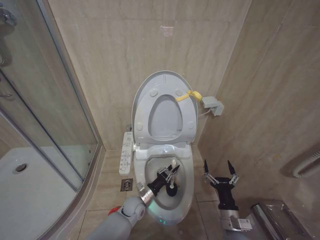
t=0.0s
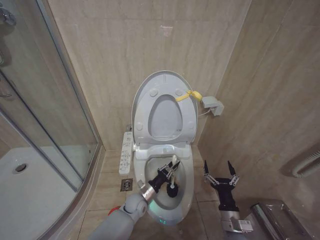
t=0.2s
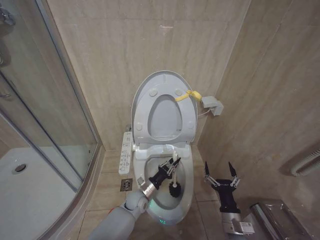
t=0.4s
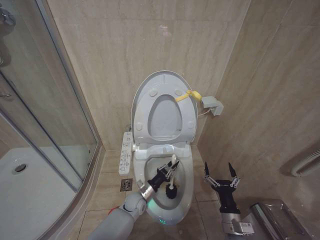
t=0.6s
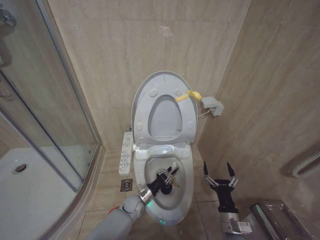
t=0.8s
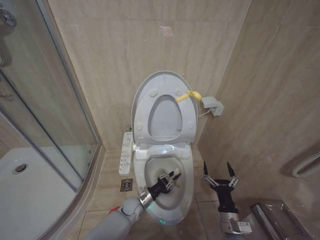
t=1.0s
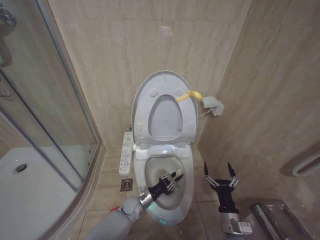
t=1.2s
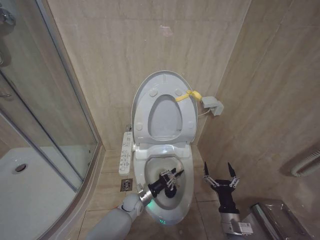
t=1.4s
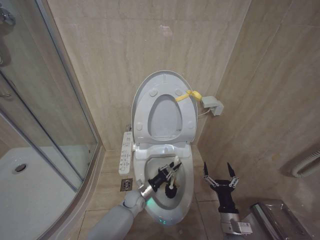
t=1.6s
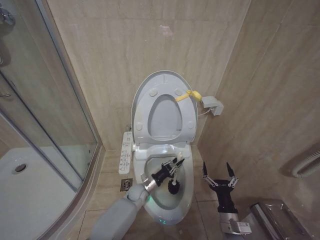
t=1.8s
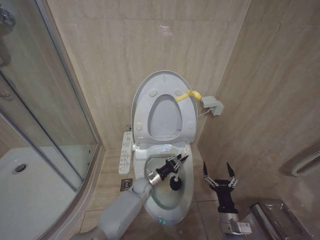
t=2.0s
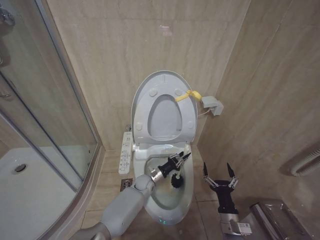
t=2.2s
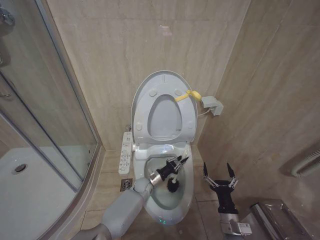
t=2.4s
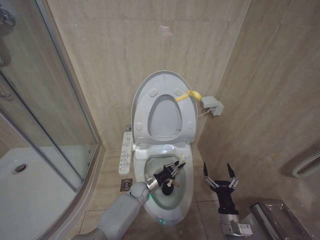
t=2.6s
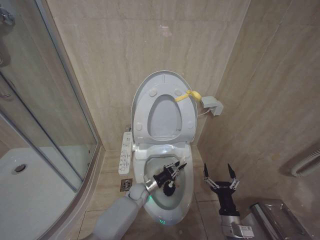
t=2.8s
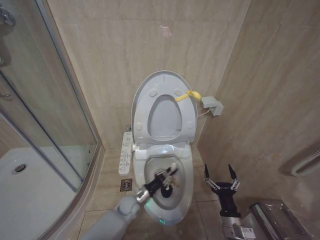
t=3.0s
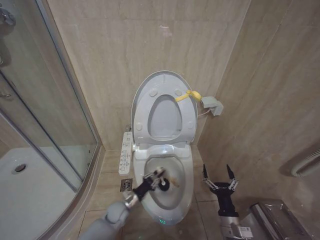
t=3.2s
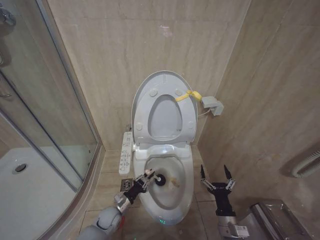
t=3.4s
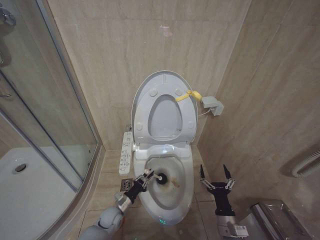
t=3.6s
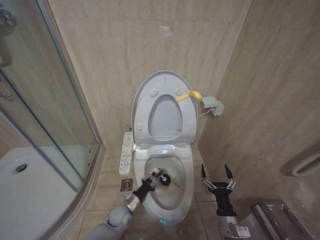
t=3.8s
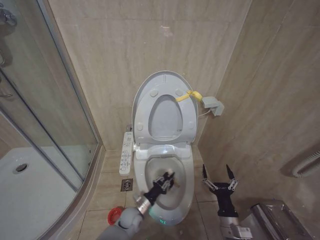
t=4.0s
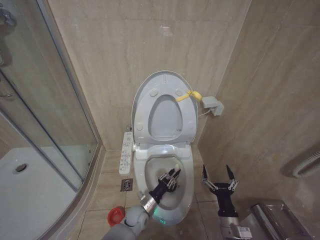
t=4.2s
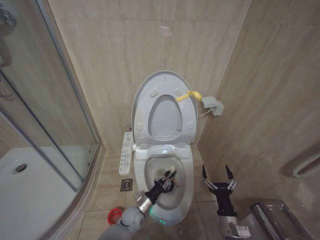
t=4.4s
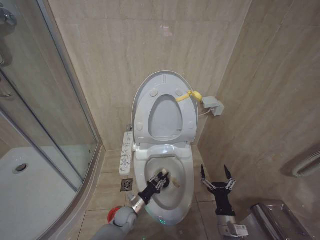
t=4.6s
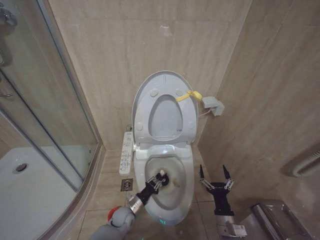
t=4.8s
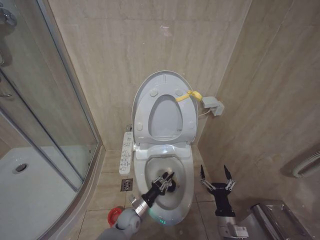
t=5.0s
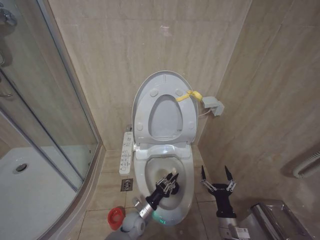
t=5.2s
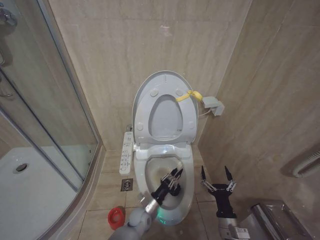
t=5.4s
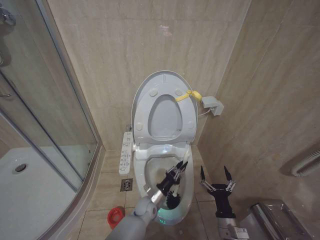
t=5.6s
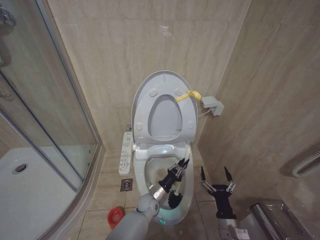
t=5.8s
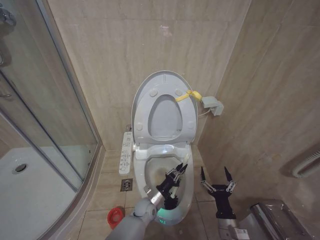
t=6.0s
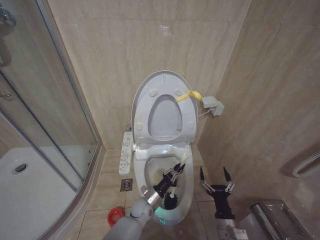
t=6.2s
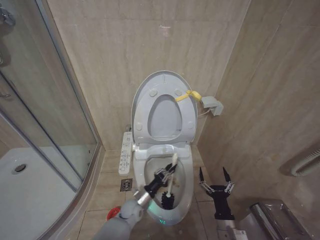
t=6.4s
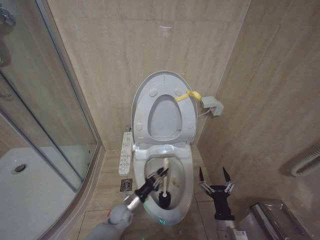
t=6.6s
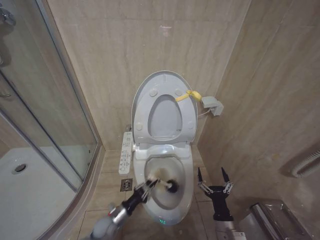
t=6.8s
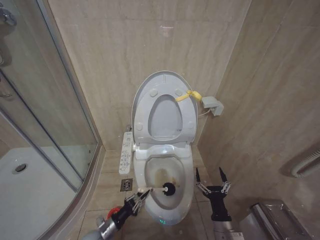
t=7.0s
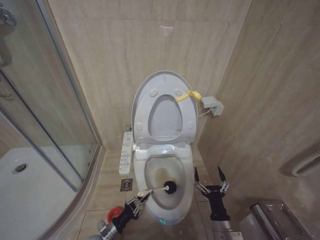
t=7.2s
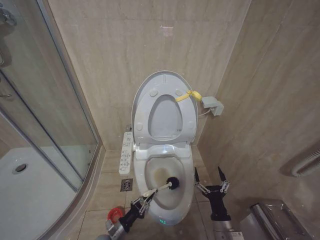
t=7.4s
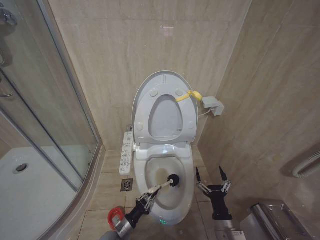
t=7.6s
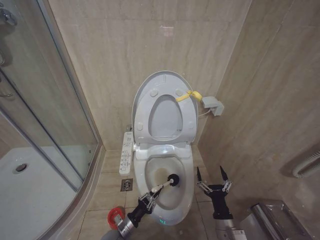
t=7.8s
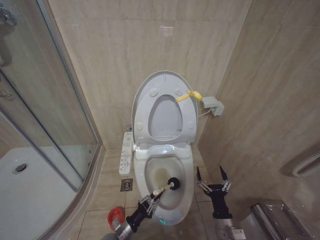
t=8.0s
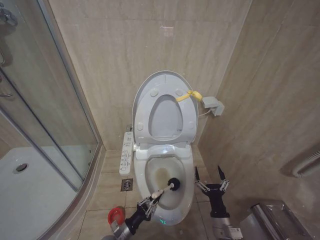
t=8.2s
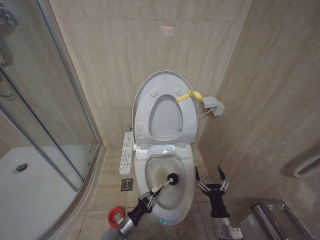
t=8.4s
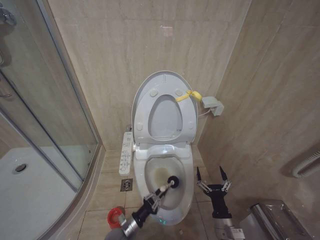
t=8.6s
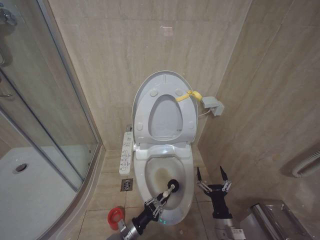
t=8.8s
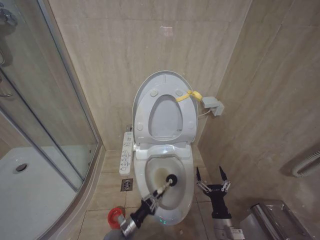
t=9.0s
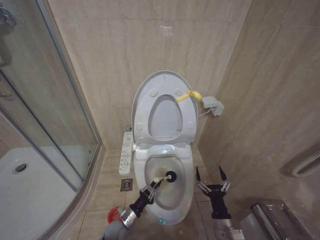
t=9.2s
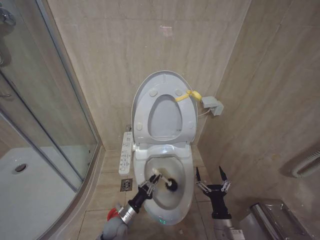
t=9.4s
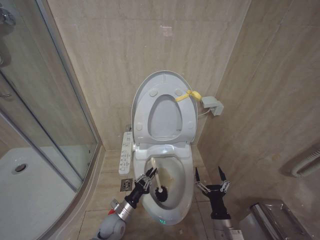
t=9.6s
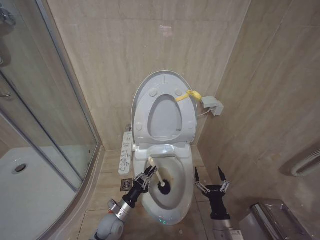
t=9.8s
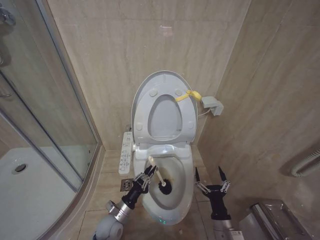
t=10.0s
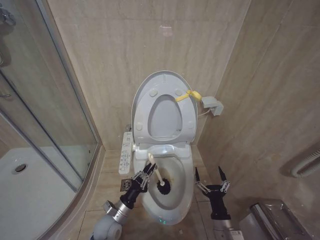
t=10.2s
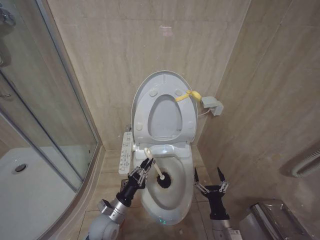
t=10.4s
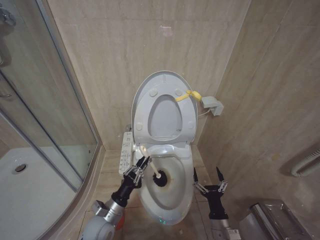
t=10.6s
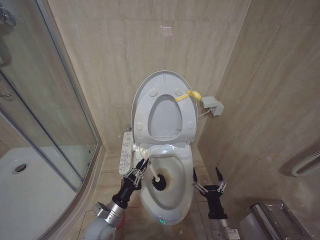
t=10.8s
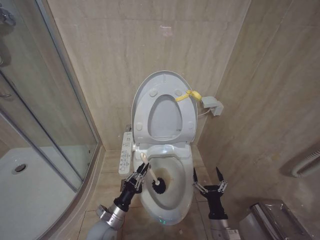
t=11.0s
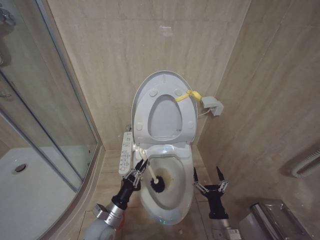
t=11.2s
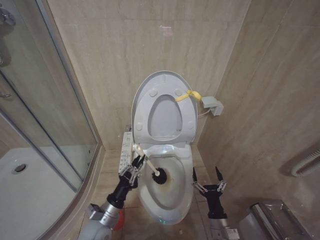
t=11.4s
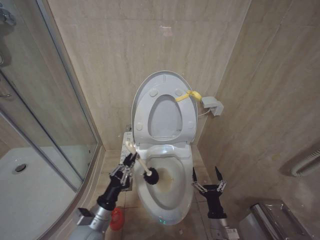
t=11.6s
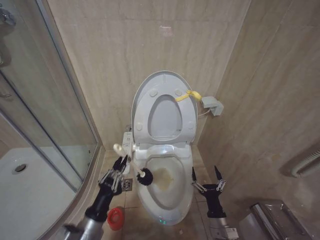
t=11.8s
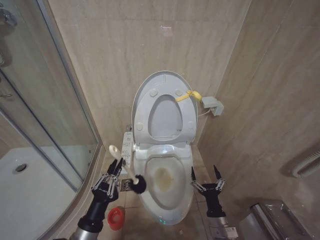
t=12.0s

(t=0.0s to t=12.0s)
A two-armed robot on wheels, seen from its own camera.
Task of the whole recording: Open the toilet lid, clean the toilet bowl with a toilet brush, close the toilet lid, and flush.
t=0.0s - t=1.6s: There are only small adjustments of the grippers.
t=3.0s - t=4.4s: The left gripper moves backward, about 5 cm, and travels to the left and back again, some 10 cm each way.
t=4.4s - t=6.0s: The left gripper shifts roughly 5 cm to the right.
t=6.0s - t=7.6s: The left gripper is displaced to the left and backward by about 20 cm.
t=7.6s - t=9.0s: The grippers stay close to where they were, moving slightly.
t=9.0s - t=10.4s: The left gripper heads upward, covering approximately 15 cm.
t=10.4s - t=12.0s: The left gripper shifts about 15 cm backward and upward.

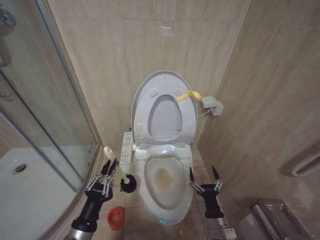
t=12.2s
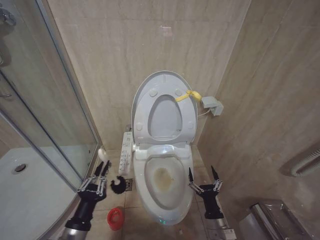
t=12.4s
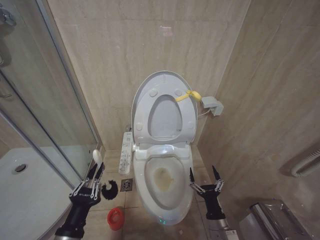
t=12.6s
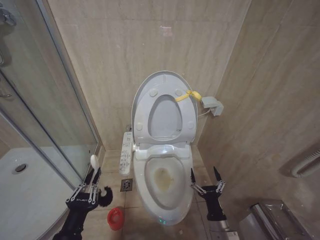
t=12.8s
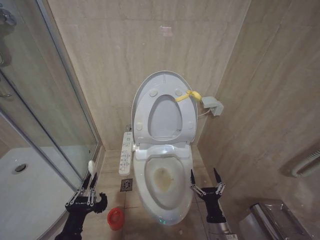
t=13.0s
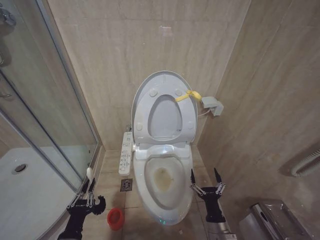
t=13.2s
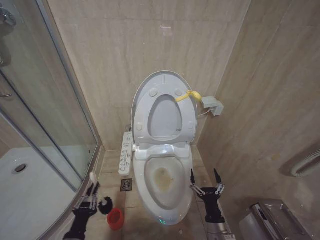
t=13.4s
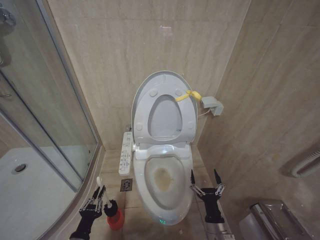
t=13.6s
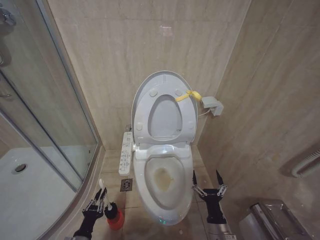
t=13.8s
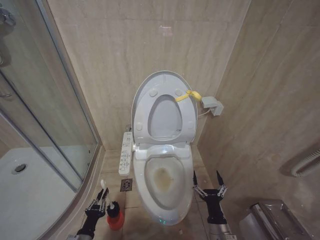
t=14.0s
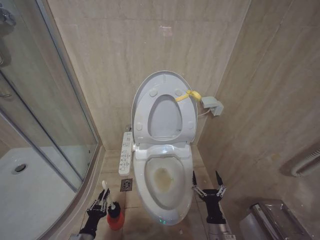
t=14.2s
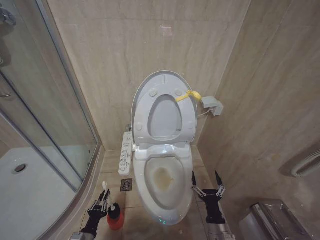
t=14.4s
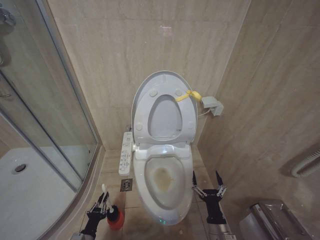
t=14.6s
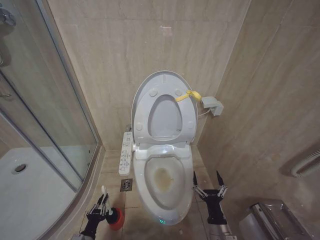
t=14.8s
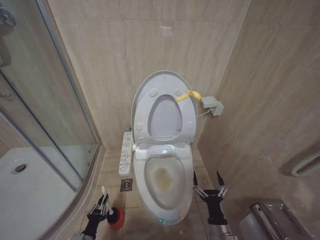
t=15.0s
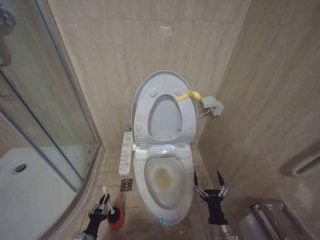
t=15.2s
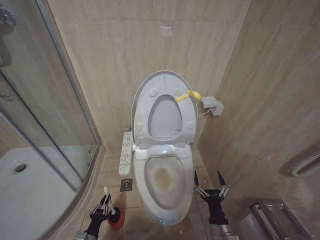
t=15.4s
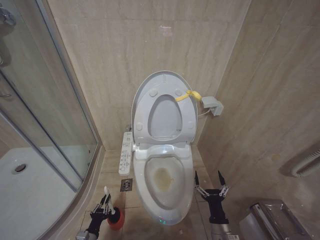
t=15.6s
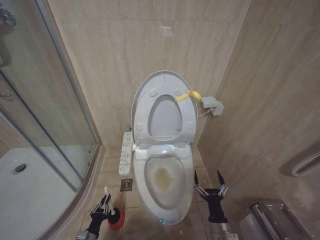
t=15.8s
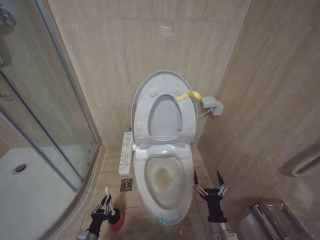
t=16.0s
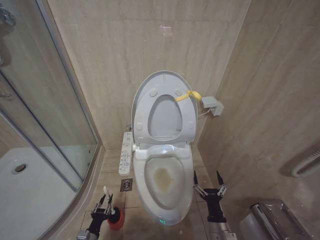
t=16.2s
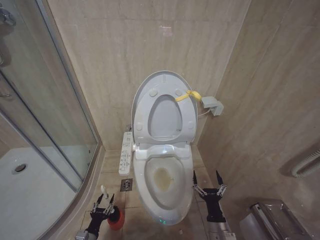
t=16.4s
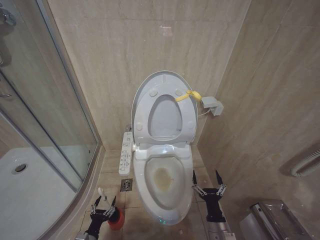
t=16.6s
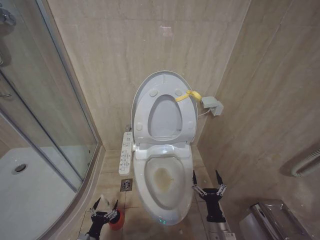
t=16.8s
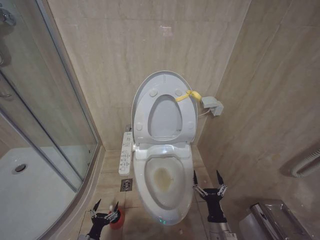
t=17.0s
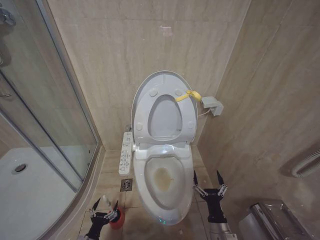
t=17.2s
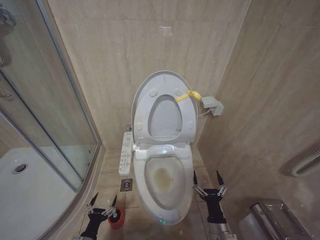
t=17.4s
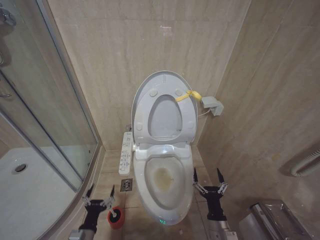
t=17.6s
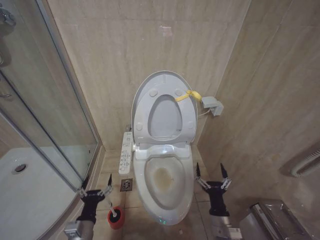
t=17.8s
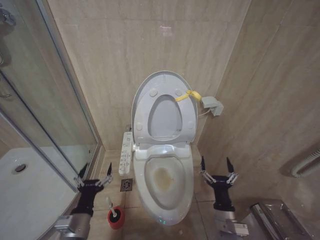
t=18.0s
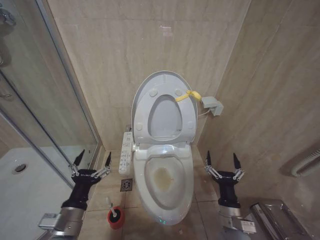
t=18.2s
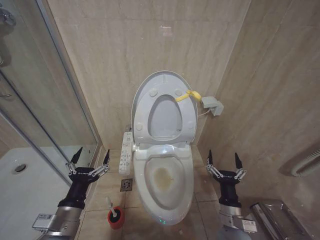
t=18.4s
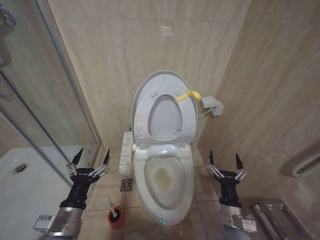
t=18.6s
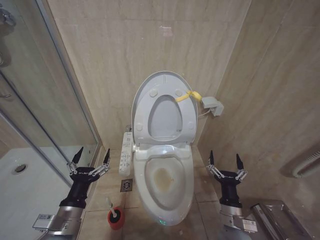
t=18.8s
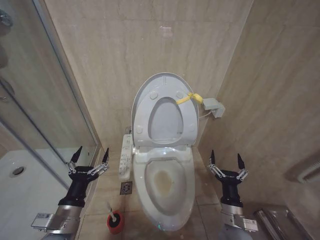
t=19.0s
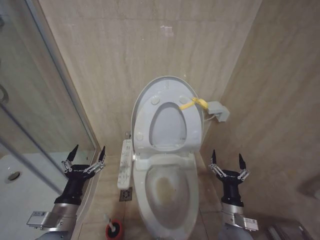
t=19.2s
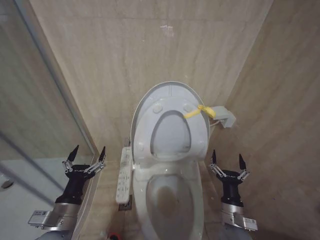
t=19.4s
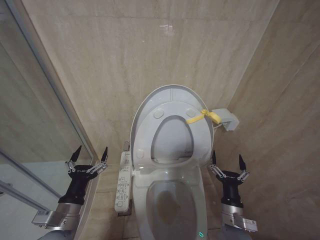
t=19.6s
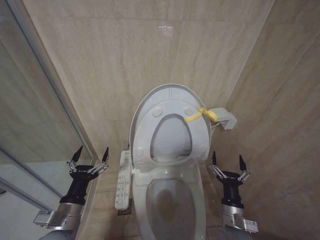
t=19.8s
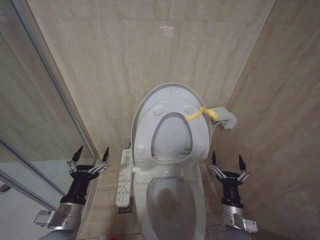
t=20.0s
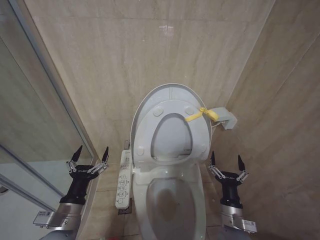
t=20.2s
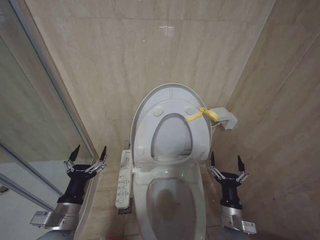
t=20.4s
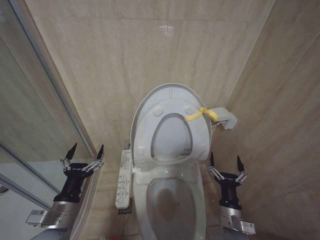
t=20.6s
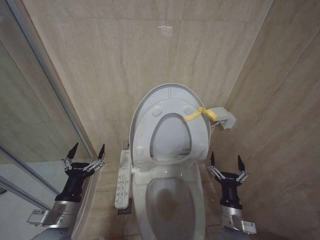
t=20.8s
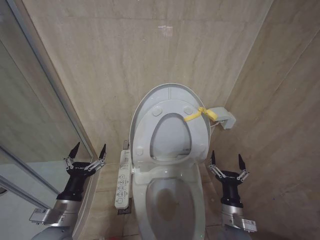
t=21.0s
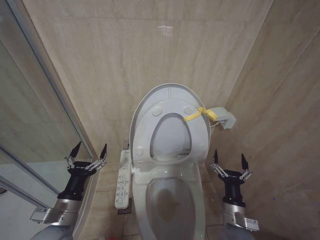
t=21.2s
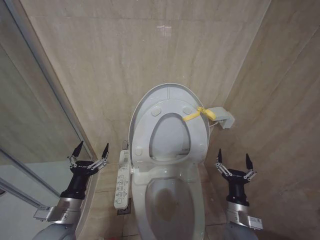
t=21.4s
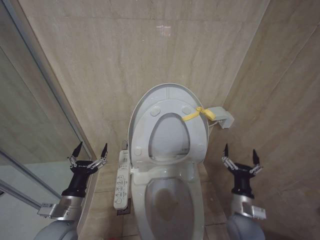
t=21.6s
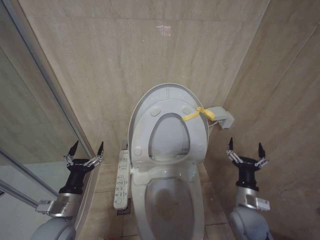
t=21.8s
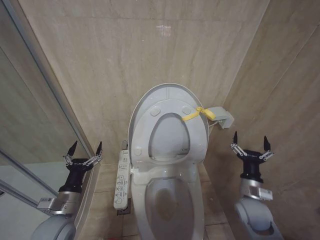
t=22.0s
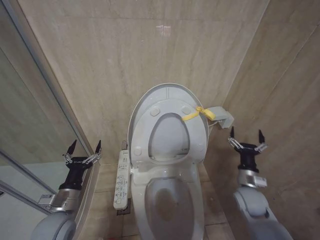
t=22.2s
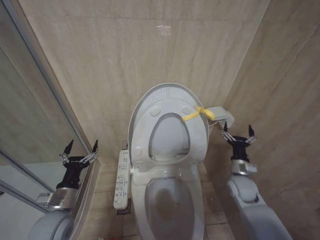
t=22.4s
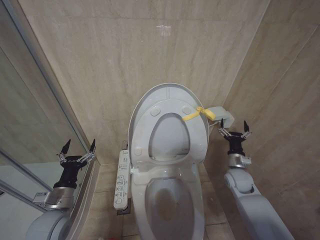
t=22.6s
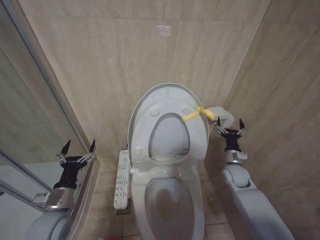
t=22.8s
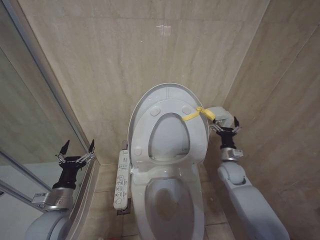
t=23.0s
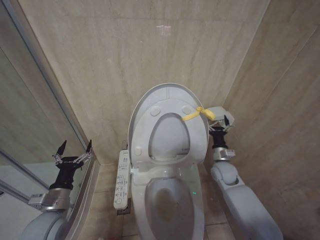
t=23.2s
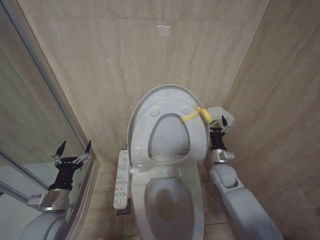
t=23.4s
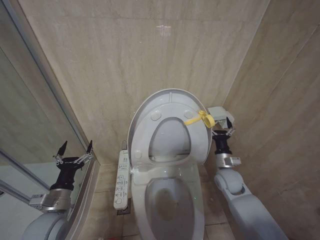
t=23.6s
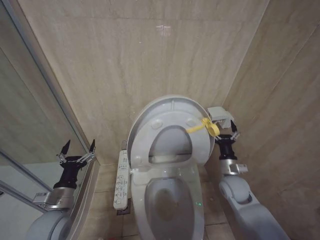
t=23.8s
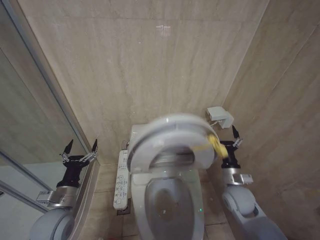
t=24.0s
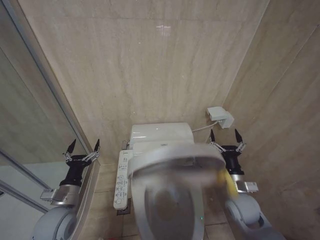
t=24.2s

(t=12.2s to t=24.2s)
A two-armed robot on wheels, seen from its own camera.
Task of the whole recording: Open the toilet lid, clean the toilet bowl with a toilet brush, close the toilet lid, and flush.
t=12.2s - t=13.8s: The left gripper goes approximately 20 cm downward and to the left.
t=13.8s - t=15.2s: The left gripper is displaced downward by roughly 10 cm.
t=15.2s - t=16.6s: The left gripper opens up.
t=16.6s - t=18.2s: The right gripper is displaced upward by some 10 cm. The left gripper heads upward, covering approximately 25 cm, and opens.
t=19.8s - t=21.2s: The grippers stay close to where they were, moving slightly.
t=21.2s - t=22.6s: The right gripper heads forward and to the right, covering roughly 20 cm, while the left gripper shifts by roughly 5 cm.
t=22.6s - t=24.2s: The right gripper is displaced backward and to the left by roughly 10 cm.
